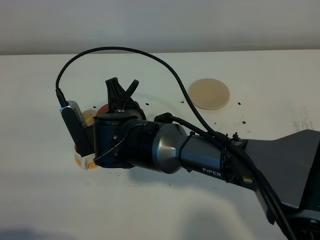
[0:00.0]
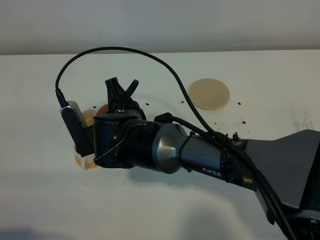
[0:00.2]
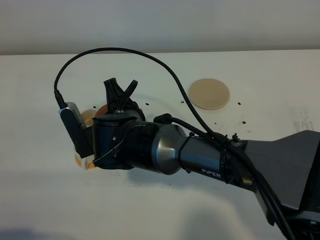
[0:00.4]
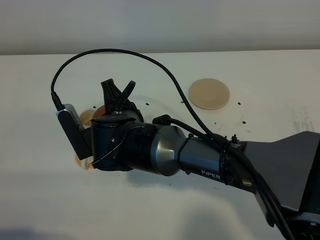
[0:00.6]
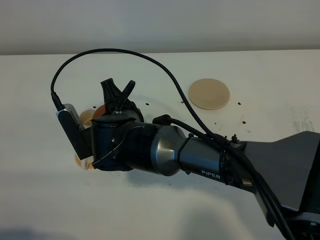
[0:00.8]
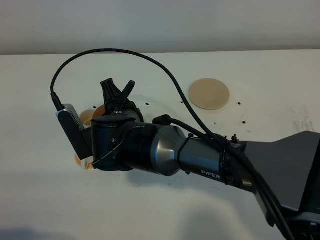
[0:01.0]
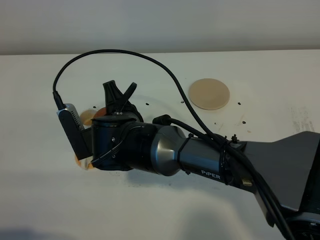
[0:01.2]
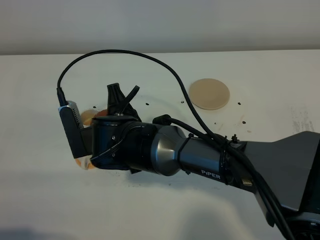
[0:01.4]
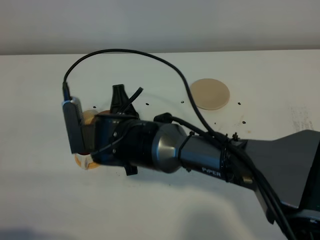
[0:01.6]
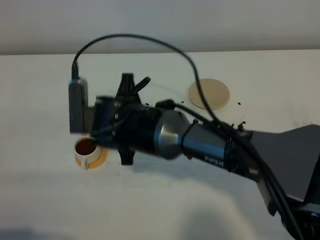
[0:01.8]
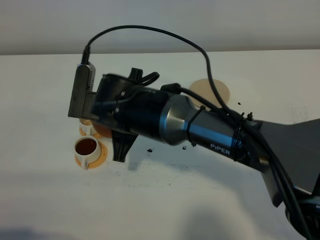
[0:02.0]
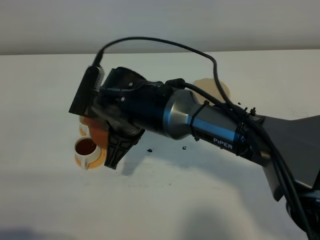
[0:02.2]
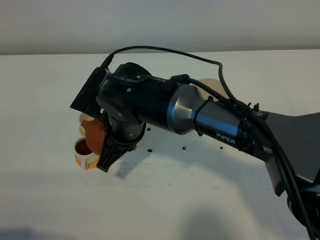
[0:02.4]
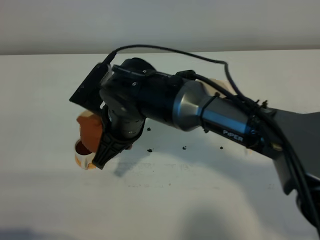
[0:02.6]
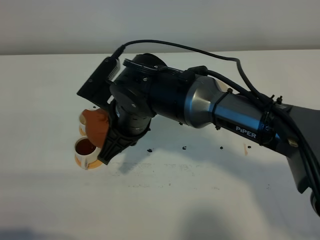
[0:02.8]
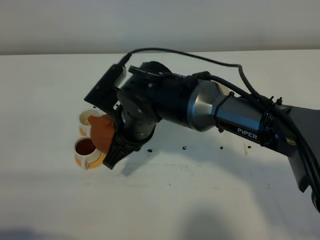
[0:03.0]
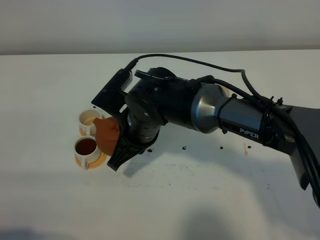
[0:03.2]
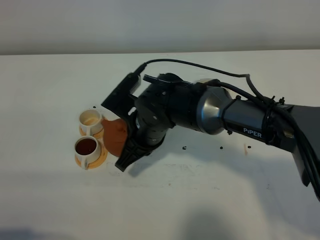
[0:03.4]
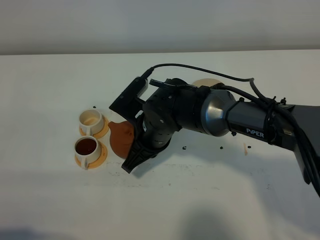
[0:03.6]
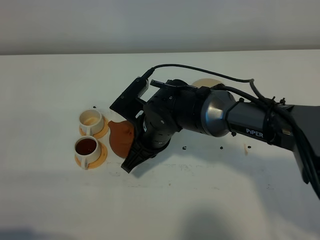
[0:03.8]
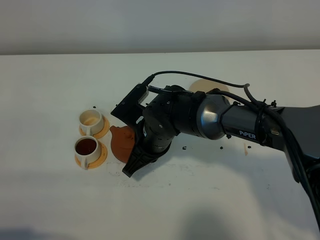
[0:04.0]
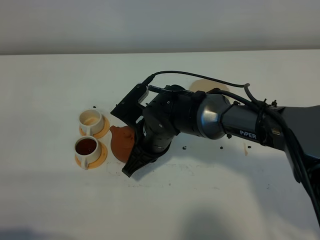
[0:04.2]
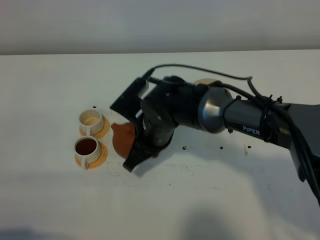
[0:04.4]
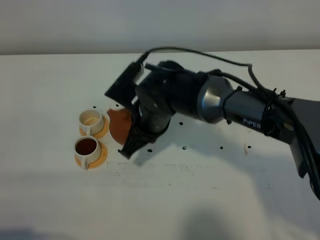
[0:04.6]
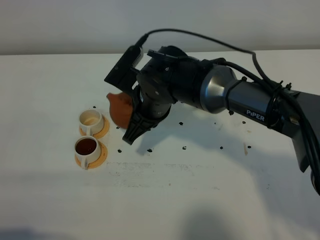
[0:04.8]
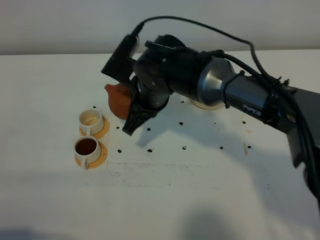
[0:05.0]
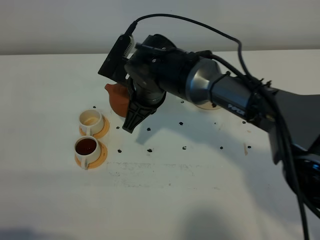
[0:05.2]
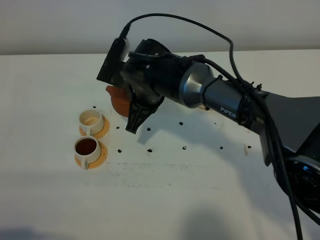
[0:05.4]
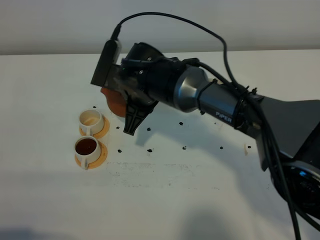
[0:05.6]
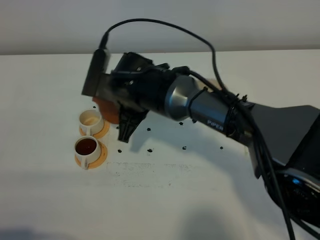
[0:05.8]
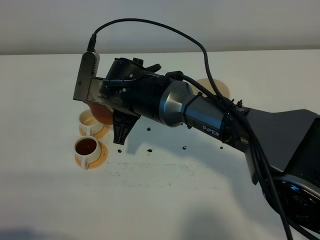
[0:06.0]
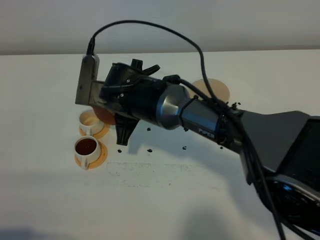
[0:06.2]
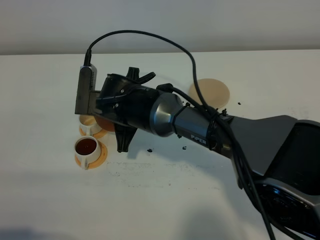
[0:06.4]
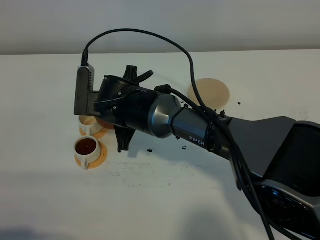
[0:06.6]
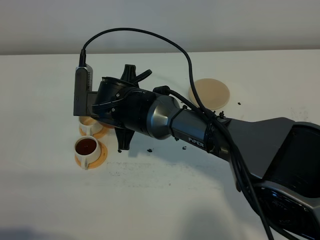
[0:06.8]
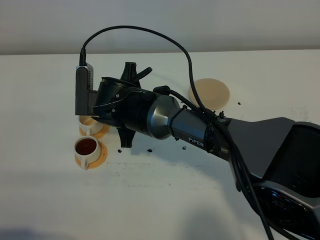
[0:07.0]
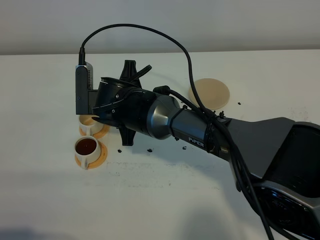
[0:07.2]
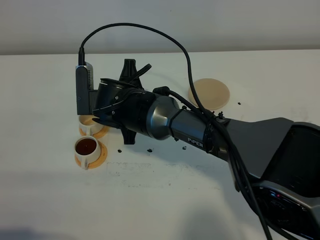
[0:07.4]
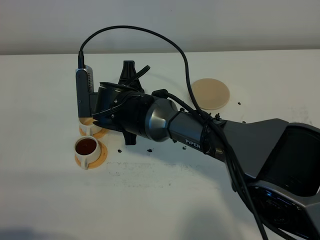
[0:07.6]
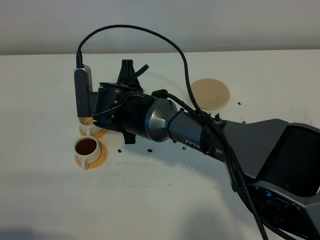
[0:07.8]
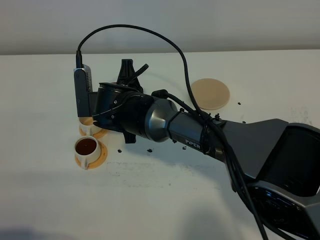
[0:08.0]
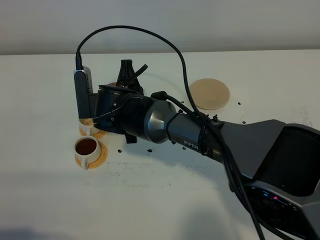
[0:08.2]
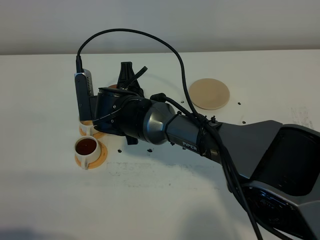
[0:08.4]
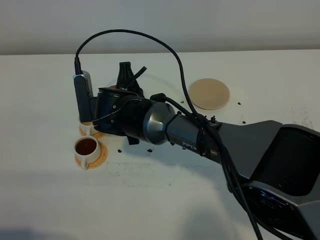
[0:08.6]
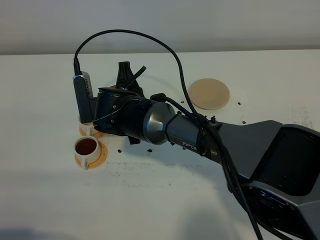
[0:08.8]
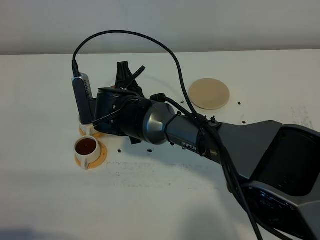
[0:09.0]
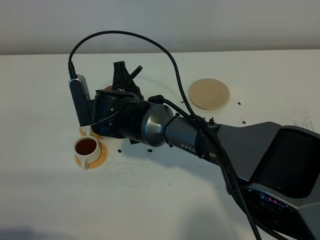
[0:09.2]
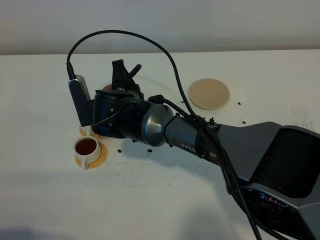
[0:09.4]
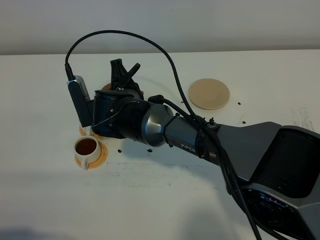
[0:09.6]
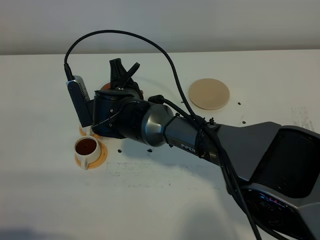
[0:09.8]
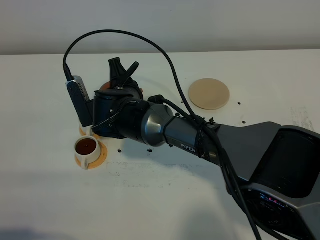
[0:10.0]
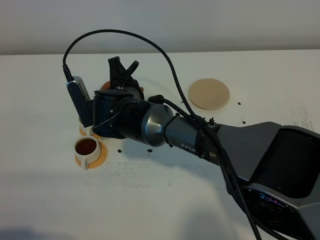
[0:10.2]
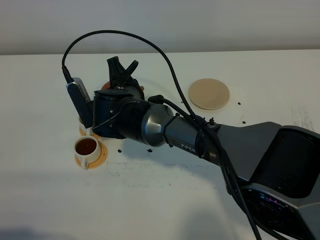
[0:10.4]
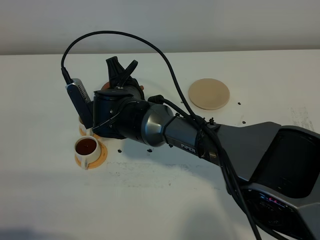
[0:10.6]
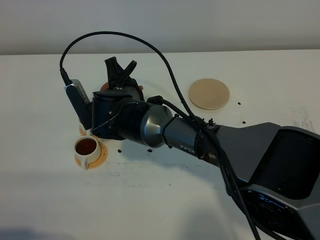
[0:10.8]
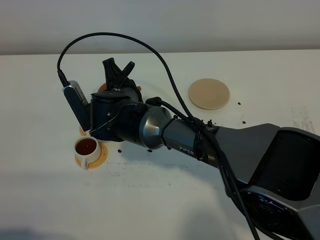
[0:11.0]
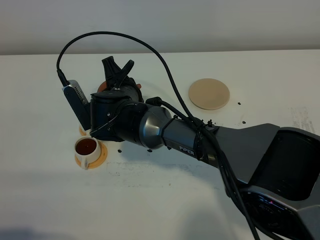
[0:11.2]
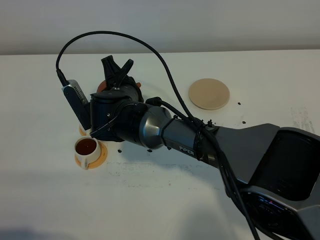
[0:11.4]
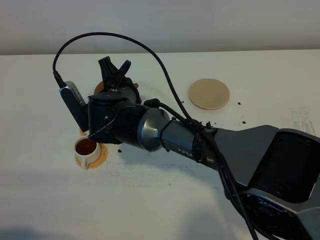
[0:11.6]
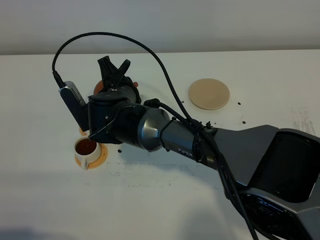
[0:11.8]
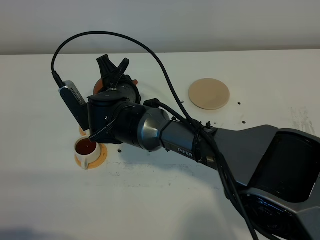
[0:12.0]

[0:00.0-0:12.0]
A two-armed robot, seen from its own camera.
Task of the whole recording: grasp the brown teapot and pour the tea into the two white teacups one by one, put the brown teapot back in its original place.
0:00.0 to 0:01.6: The grippers make only small movements.
0:04.4 to 0:06.0: The right gripper shifts some 5 cm to the left.
0:07.6 to 0:09.0: The grippers stay close to where they were, moving slightly.
0:09.0 to 0:12.0: There are only small adjustments of the grippers.

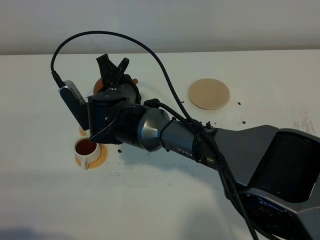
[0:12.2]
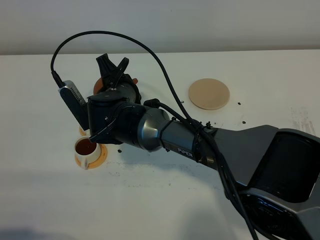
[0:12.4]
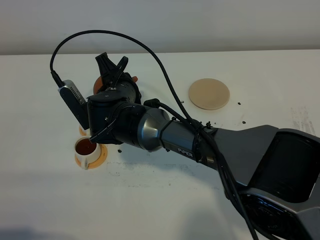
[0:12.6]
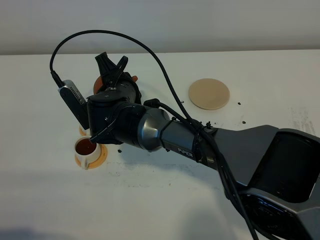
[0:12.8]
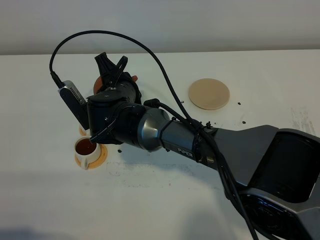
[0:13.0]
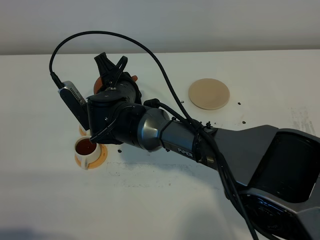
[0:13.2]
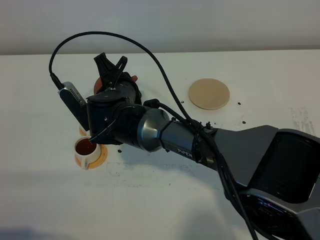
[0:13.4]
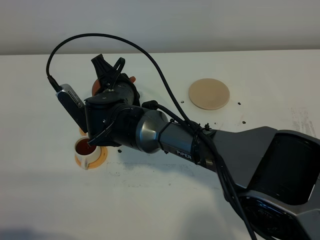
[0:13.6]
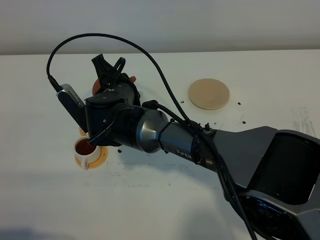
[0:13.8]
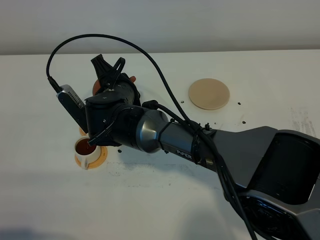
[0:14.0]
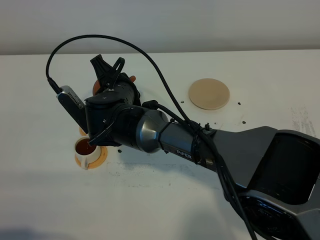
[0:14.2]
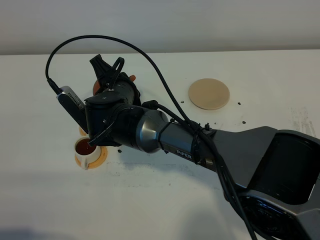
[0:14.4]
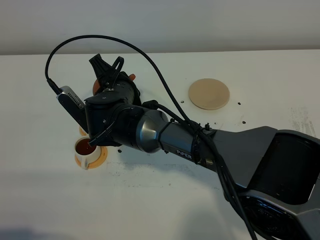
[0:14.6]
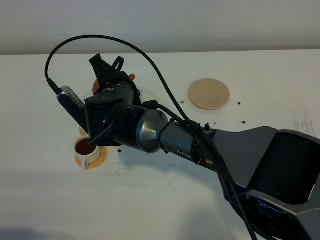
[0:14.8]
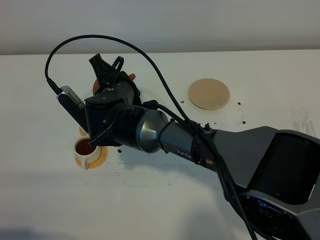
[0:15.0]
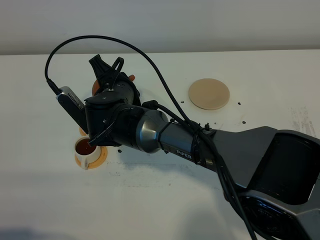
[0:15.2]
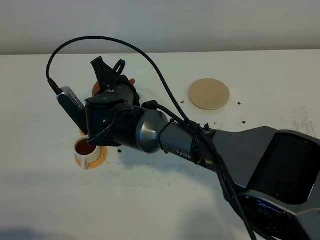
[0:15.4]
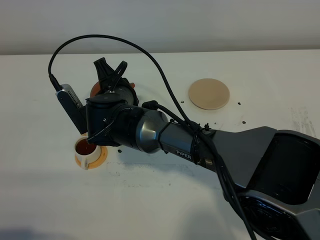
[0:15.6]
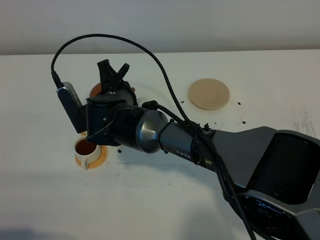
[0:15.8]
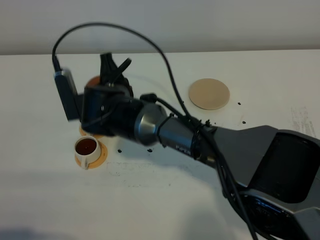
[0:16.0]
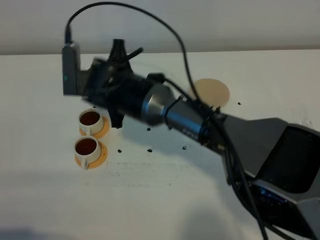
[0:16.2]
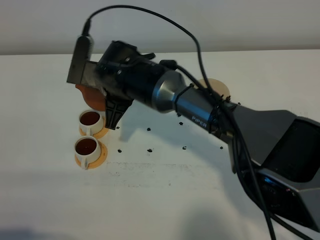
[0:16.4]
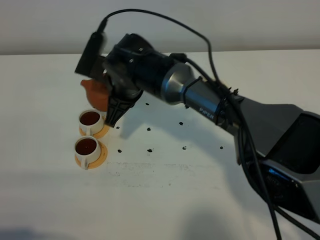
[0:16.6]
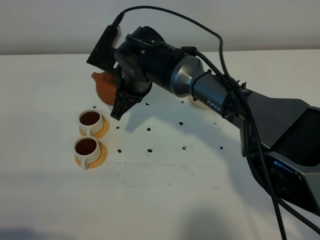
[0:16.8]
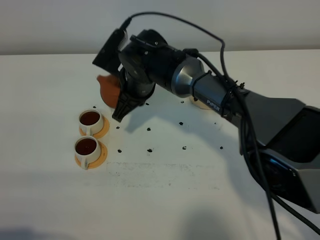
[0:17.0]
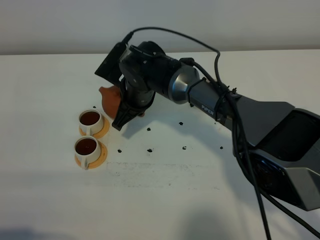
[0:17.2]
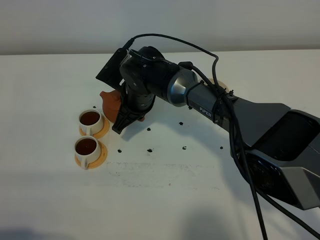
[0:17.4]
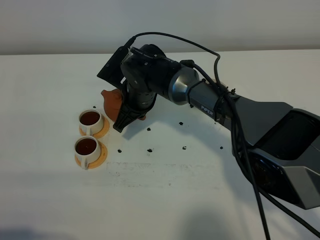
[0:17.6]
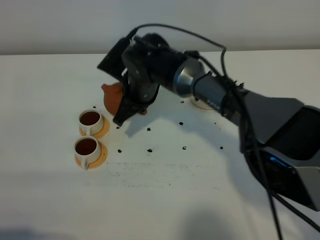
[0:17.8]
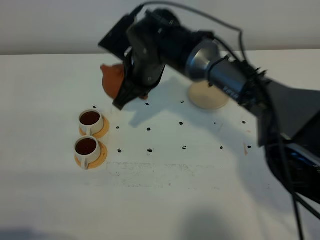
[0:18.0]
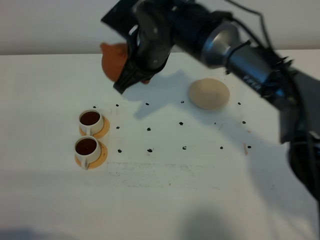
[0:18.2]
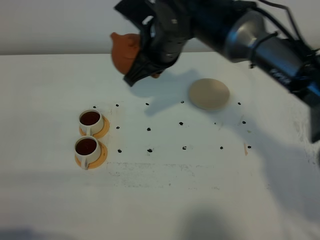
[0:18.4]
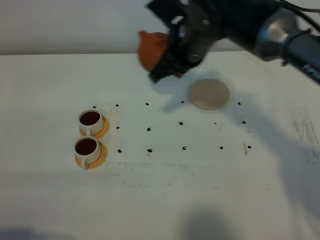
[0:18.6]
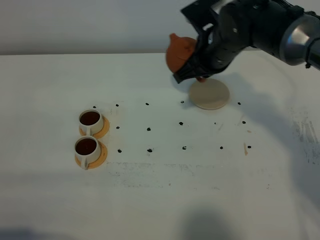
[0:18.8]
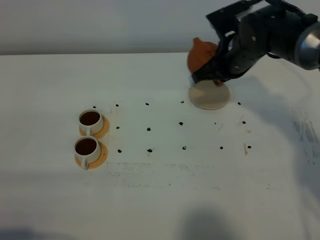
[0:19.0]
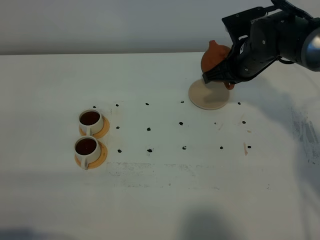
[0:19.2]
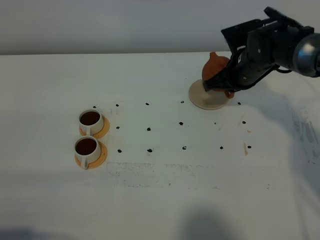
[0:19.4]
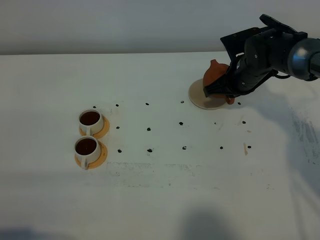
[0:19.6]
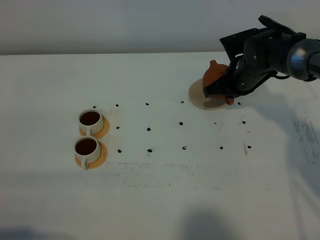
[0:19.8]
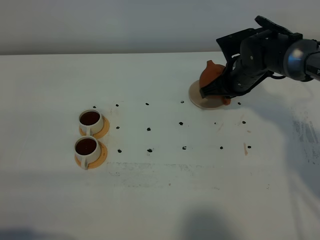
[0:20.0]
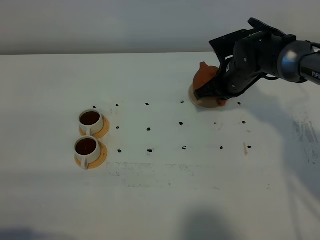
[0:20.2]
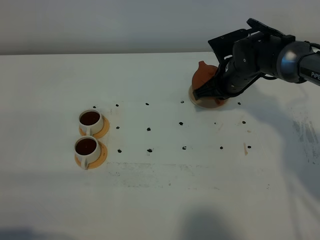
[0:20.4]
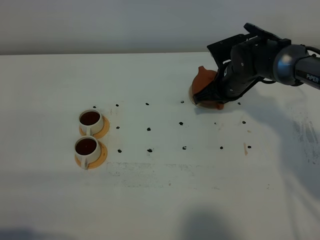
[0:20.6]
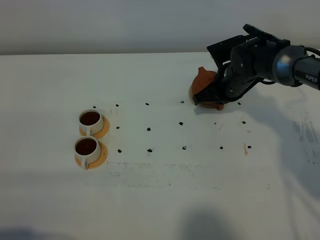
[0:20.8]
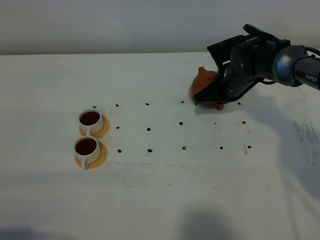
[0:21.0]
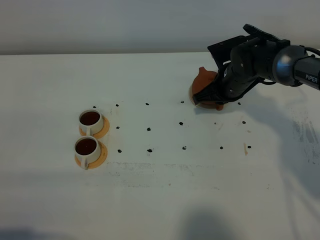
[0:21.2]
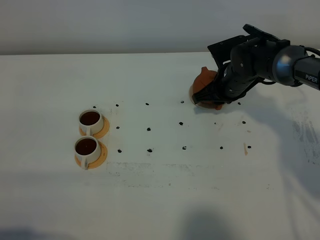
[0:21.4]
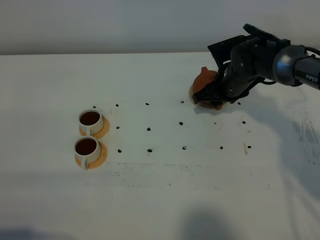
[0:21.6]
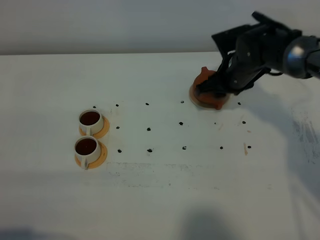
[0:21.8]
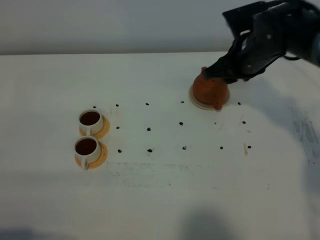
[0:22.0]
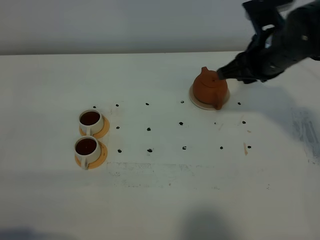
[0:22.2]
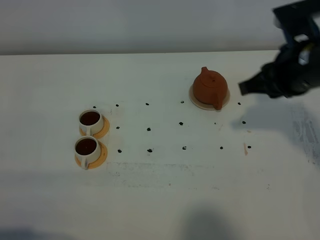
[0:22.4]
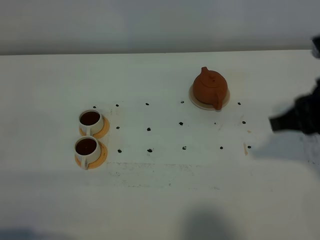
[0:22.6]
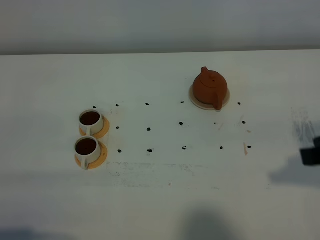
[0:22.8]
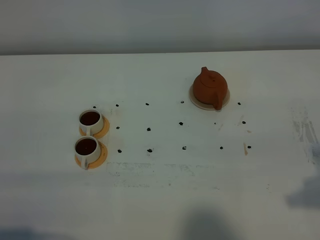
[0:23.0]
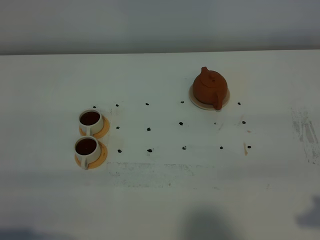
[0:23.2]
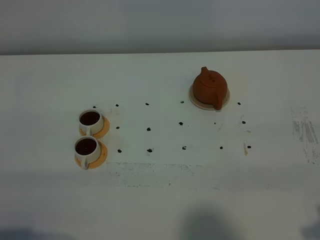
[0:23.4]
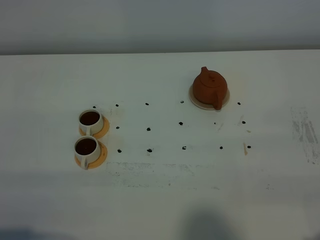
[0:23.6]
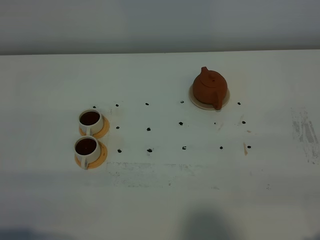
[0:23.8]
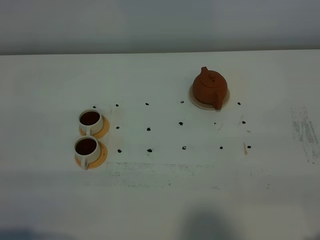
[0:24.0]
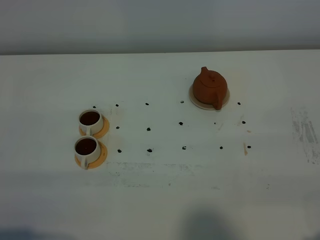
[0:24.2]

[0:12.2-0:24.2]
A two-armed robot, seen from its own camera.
Task of the whole recording: grasp the brown teapot and pour the tea into the two white teacups one by one, put the brown teapot back in its original place.
Step, 0:12.2 to 0:17.0: Pour tea into the teacup with the right gripper.
0:12.2 to 0:13.8: Both grippers stay put.
0:13.8 to 0:15.2: The two grippers keep their place.
0:16.6 to 0:18.2: The right gripper goes about 5 cm upward.
0:18.2 to 0:19.8: The right gripper goes about 20 cm to the right, downward and forward.
0:19.8 to 0:21.2: The grippers make only small movements.
0:21.2 to 0:22.6: The right gripper travels backward, upward and to the right by approximately 30 cm, and opens and closes again.
0:22.6 to 0:24.2: The right gripper travels backward and to the right by roughly 15 cm.
